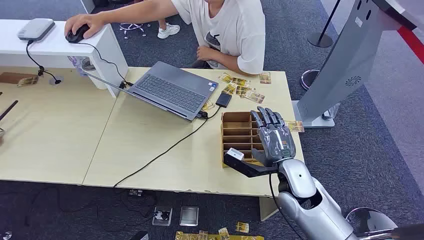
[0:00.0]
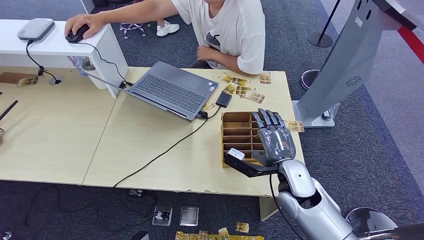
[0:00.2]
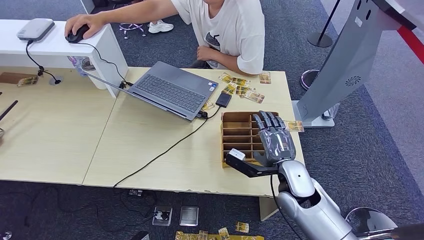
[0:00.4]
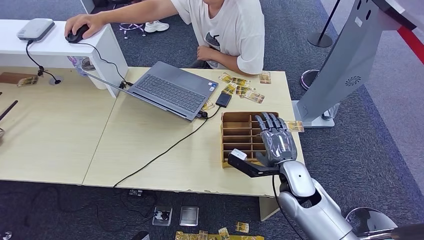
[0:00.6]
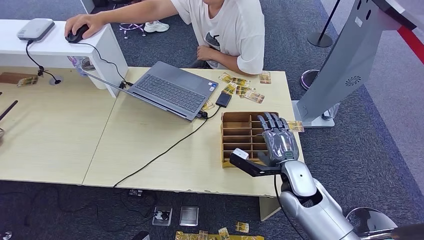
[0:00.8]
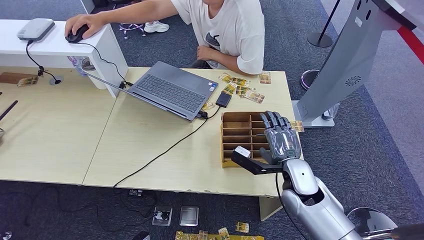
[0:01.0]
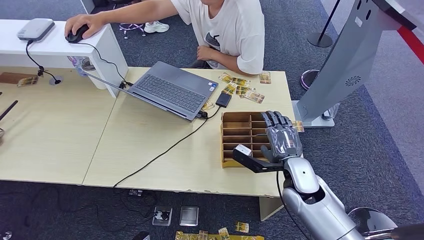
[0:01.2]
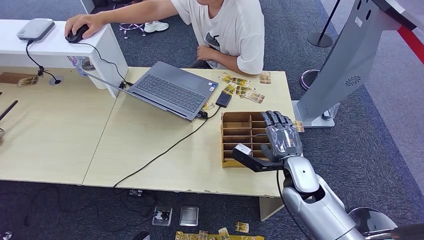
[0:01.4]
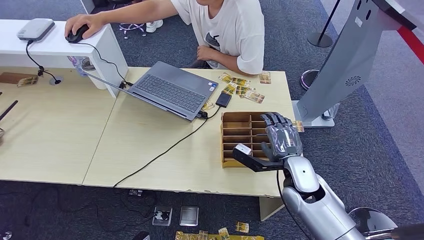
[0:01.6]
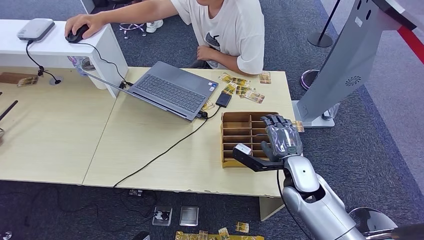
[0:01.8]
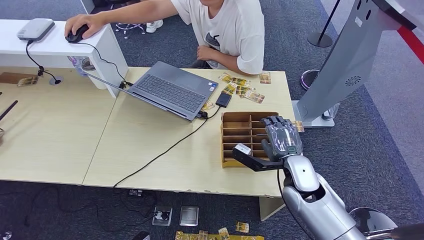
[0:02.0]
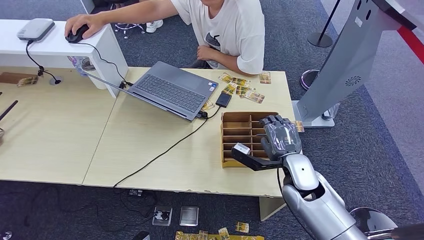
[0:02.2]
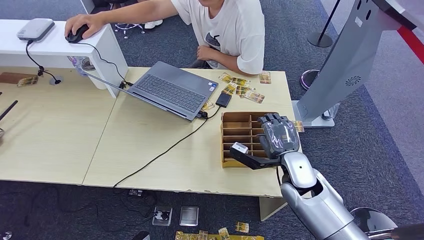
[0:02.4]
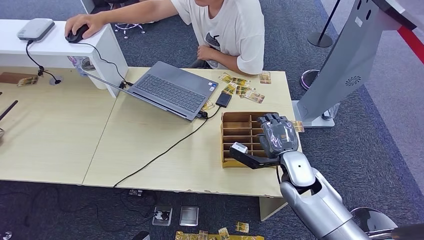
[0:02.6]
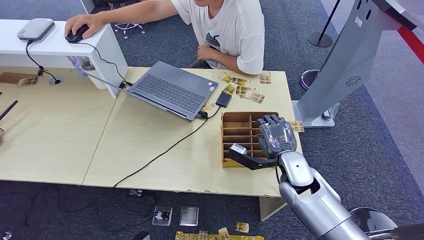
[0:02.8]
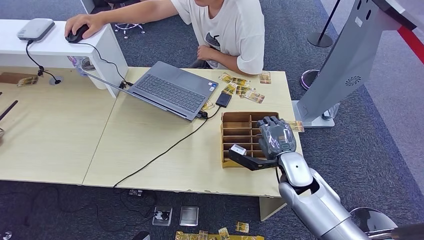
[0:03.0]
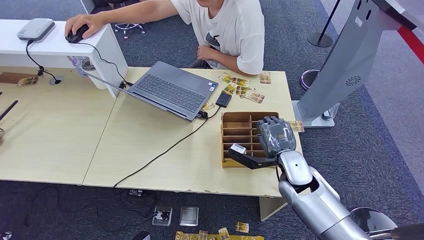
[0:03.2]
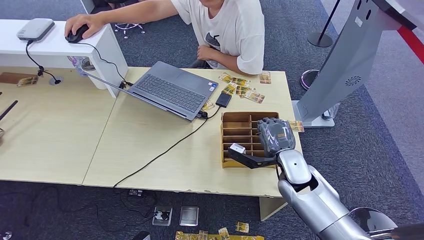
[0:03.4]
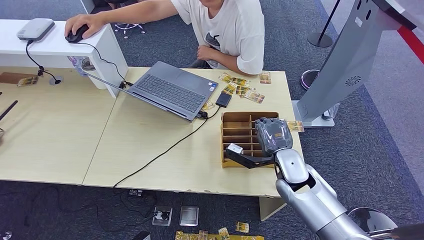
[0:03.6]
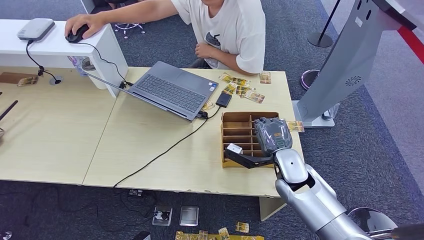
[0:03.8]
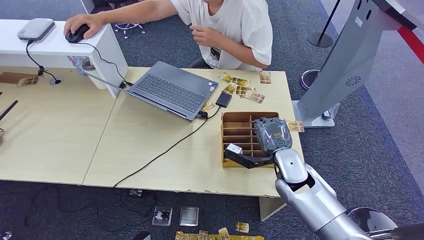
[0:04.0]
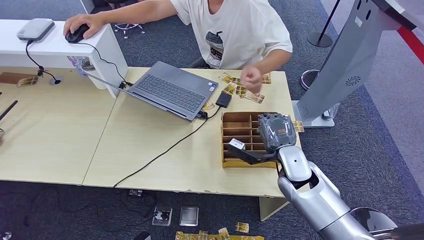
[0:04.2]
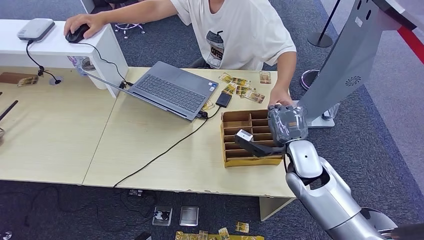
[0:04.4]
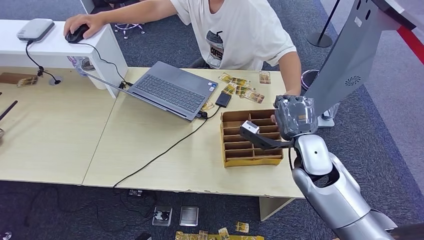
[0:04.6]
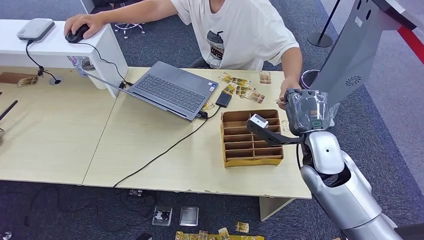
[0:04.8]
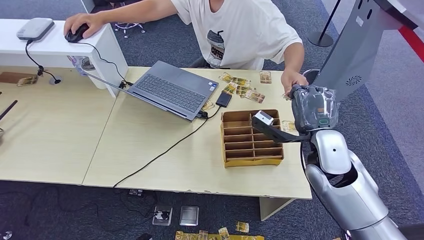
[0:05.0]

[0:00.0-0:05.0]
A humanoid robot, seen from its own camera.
Step, 0:00.0 to 0:04.0: Pick up the key card from the card box.
Step, 0:04.2 to 0:05.0: Hand the key card to the target.
0:01.6 to 0:03.4: The hands stay close to where they were, moving slightly.
0:03.4 to 0:05.0: The right hand goes some 10 cm upward.
